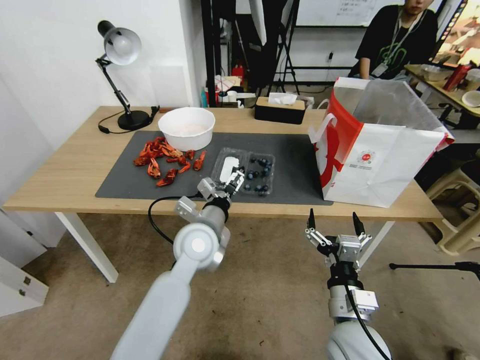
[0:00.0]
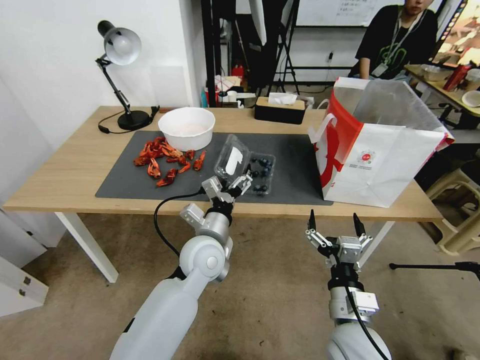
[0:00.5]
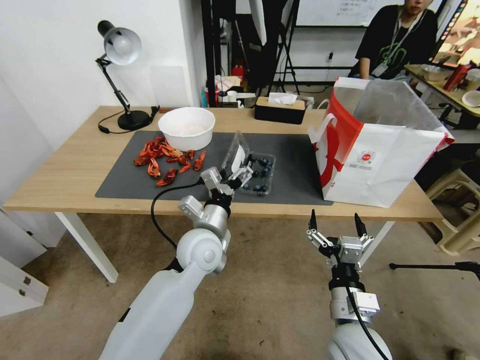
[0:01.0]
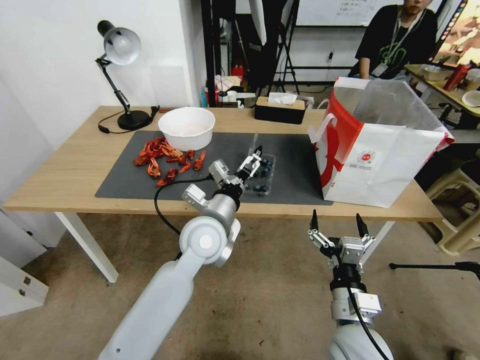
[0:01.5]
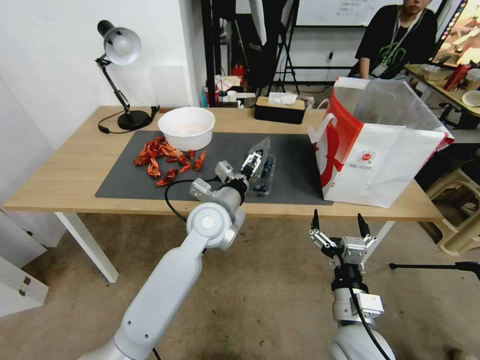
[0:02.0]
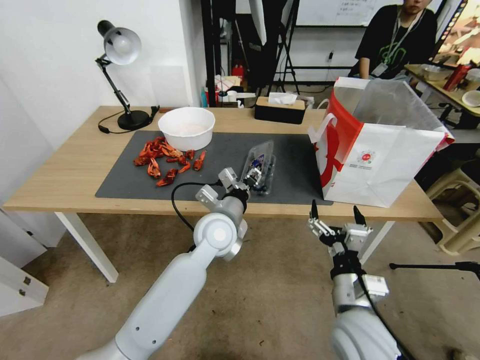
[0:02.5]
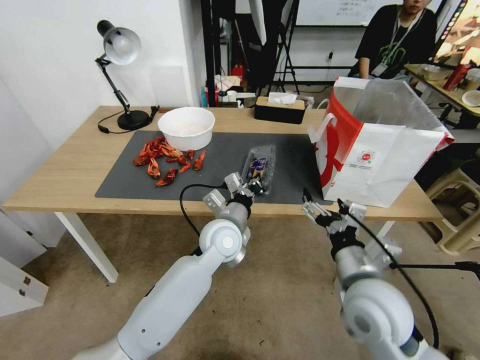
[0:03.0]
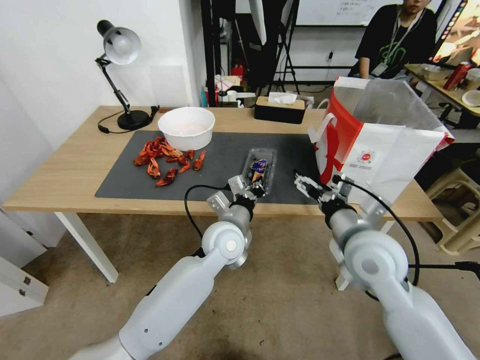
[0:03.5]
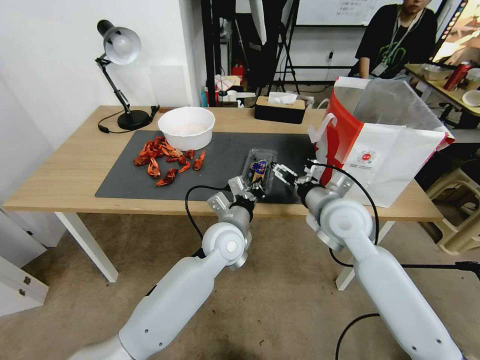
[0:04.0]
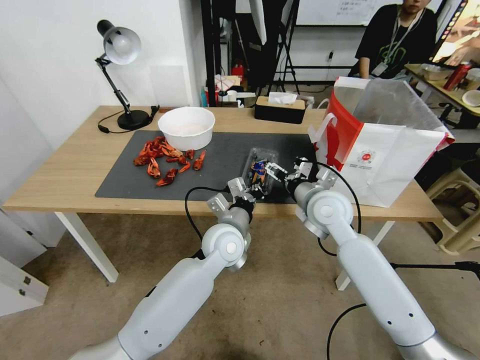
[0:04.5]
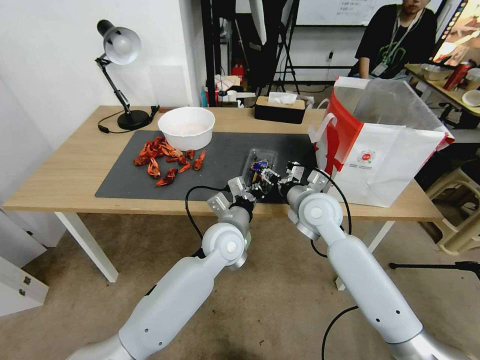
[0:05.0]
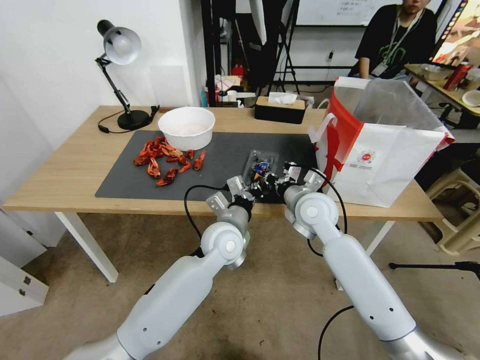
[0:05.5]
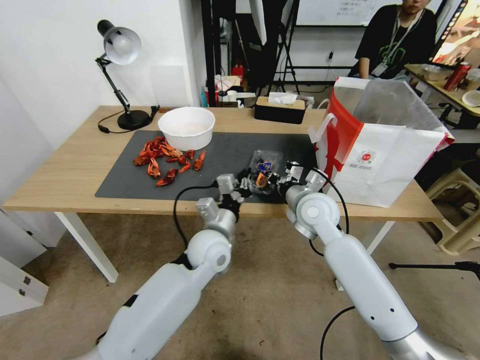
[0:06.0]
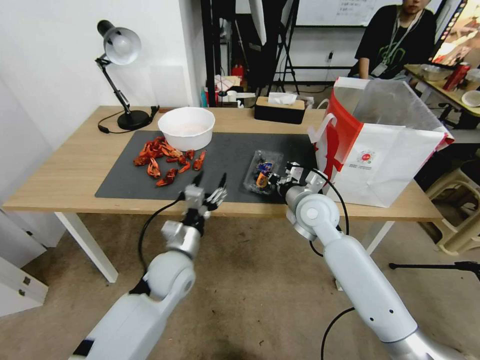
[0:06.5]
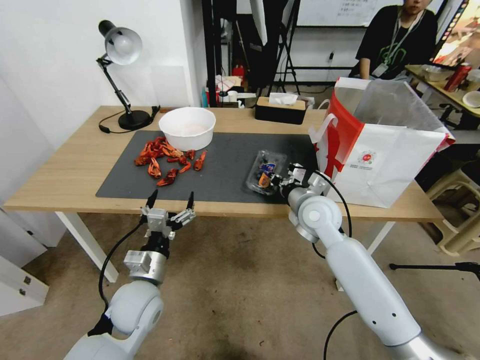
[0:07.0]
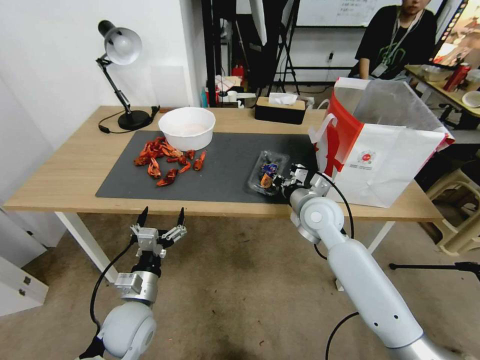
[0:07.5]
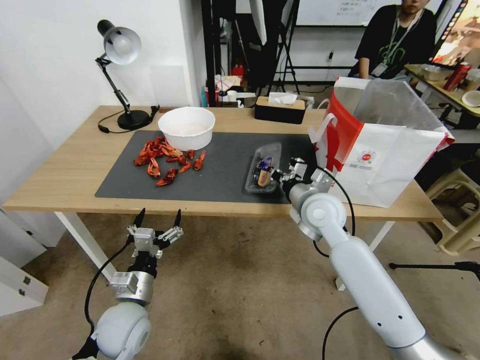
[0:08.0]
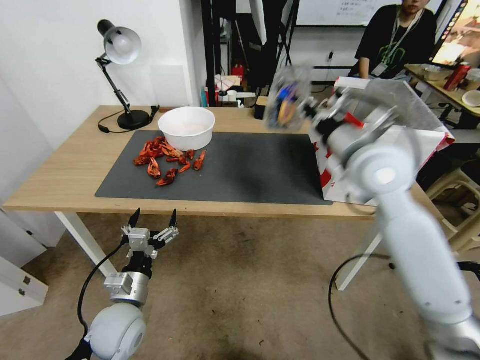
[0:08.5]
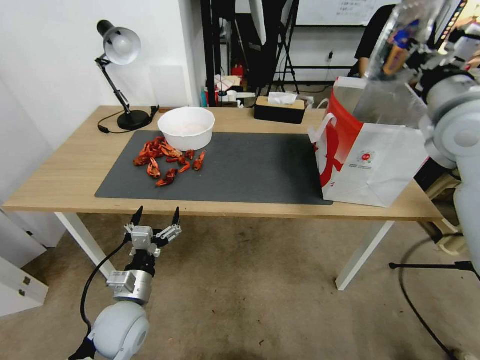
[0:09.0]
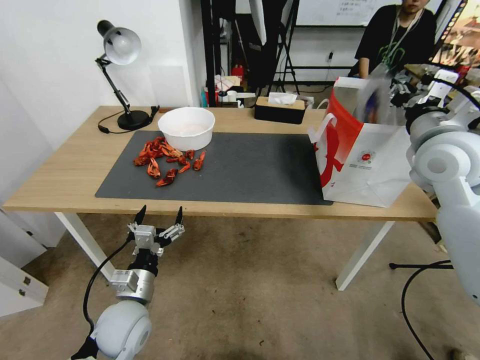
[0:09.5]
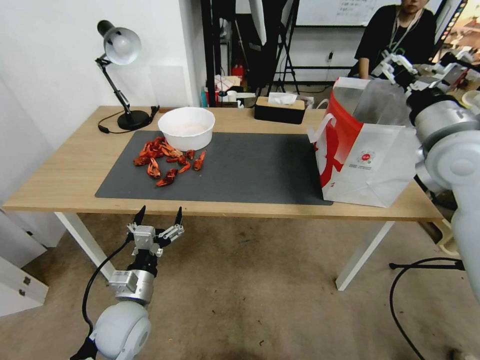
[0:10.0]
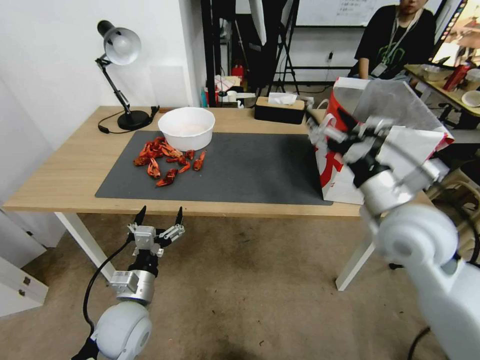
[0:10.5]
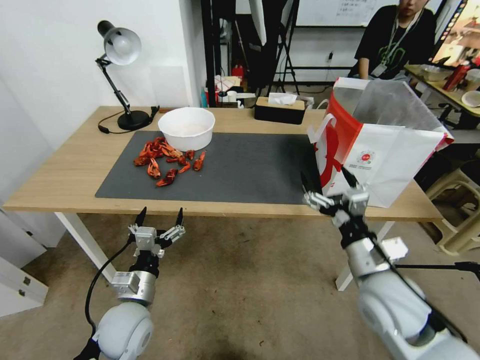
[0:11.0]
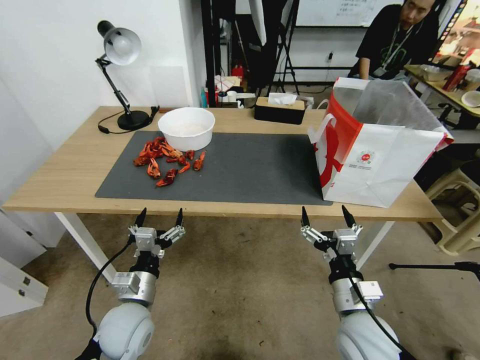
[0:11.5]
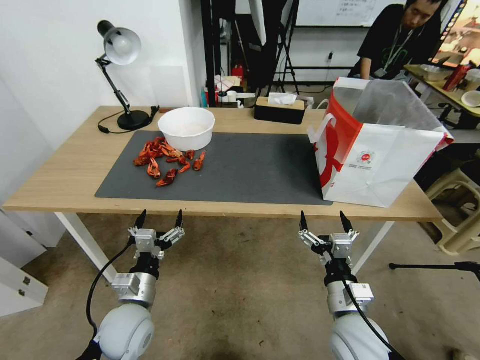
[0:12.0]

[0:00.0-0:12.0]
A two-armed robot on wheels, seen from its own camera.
Task of the whole recording: Close the takeout container lid, then place the container into the takeout bag.
0:02.0 to 0:04.0: The left gripper is displaced downward by approximately 5 cm, and closes; the right gripper heads forward and upward, covering approximately 25 cm.
0:04.0 to 0:06.0: The right gripper goes about 5 cm forward, and closes.
0:06.0 to 0:08.0: The left gripper is displaced to the left and backward by roughly 20 cm, and opens its fingers.
0:08.0 to 0:10.0: The right gripper travels upward and to the right by some 25 cm, and opens up.
0:10.0 to 0:12.0: The right gripper travels downward, backward and to the left by approximately 40 cm.

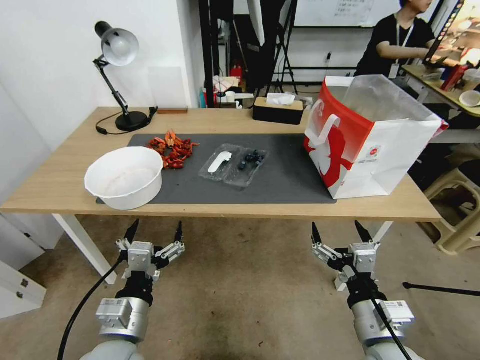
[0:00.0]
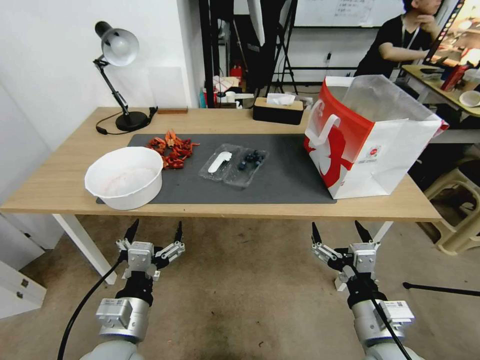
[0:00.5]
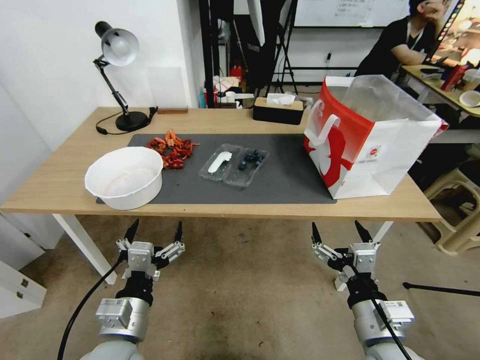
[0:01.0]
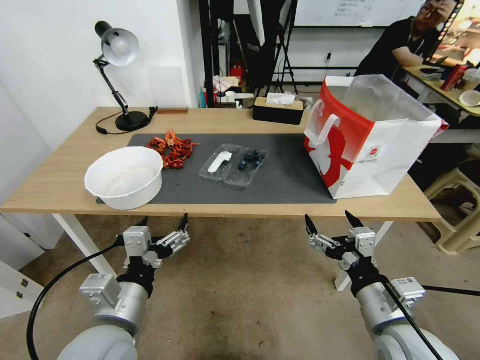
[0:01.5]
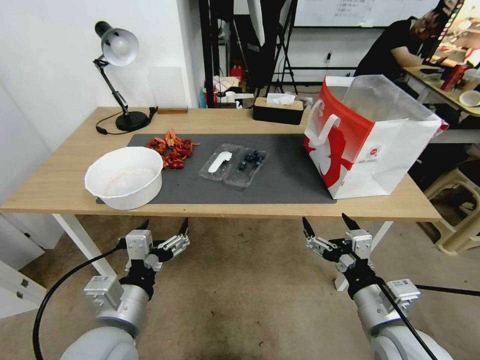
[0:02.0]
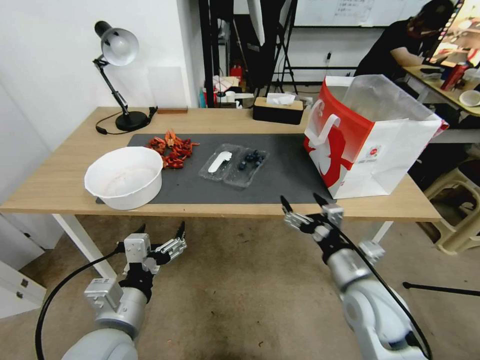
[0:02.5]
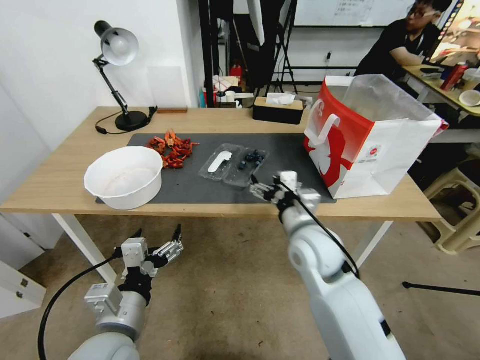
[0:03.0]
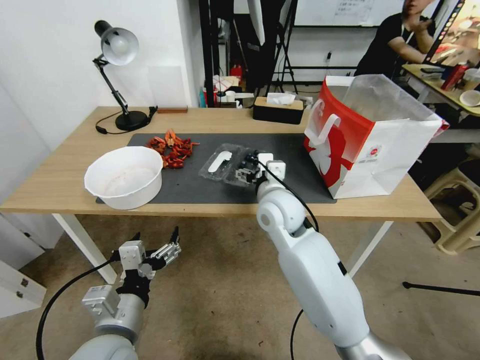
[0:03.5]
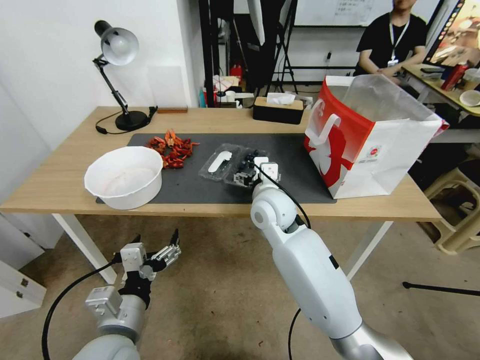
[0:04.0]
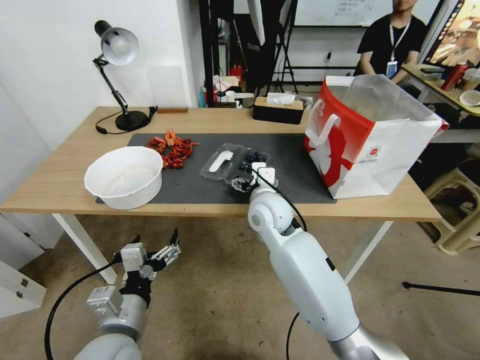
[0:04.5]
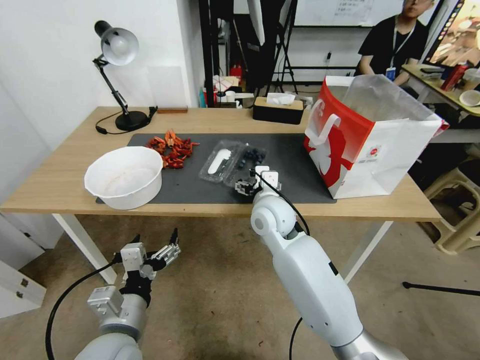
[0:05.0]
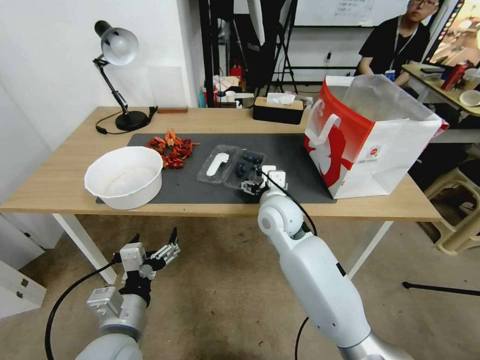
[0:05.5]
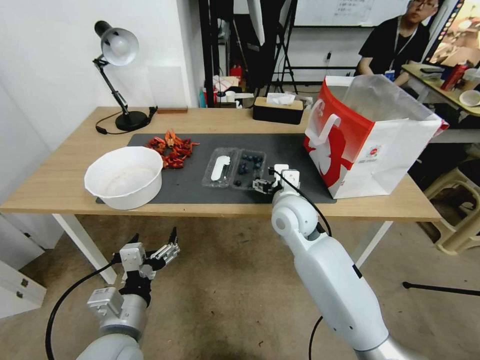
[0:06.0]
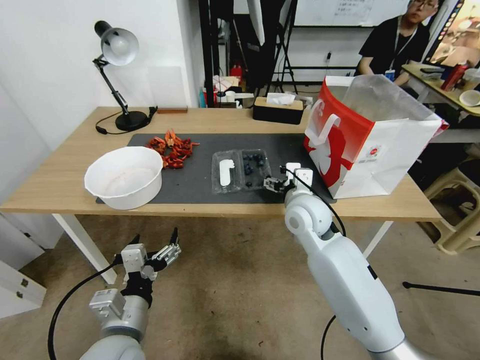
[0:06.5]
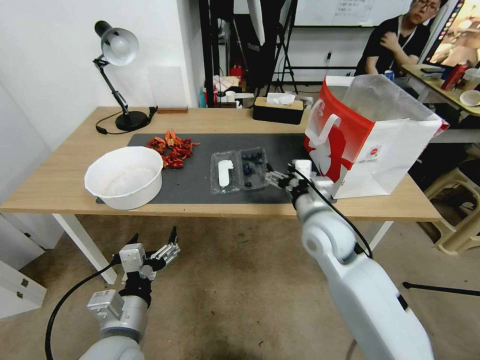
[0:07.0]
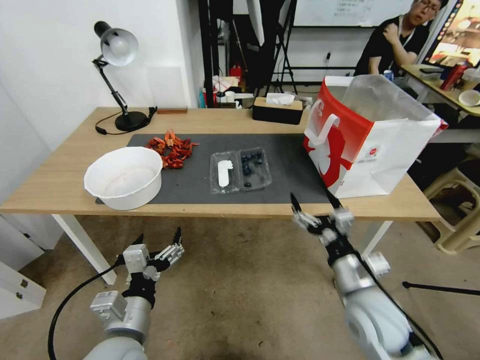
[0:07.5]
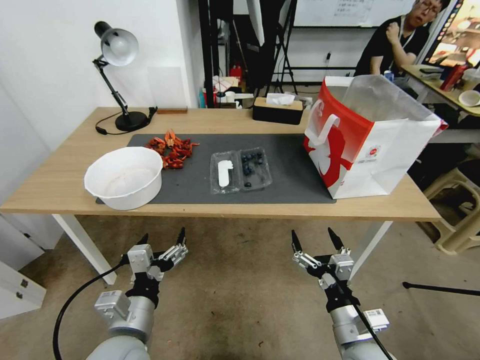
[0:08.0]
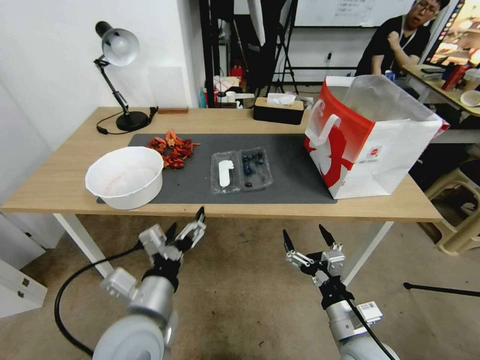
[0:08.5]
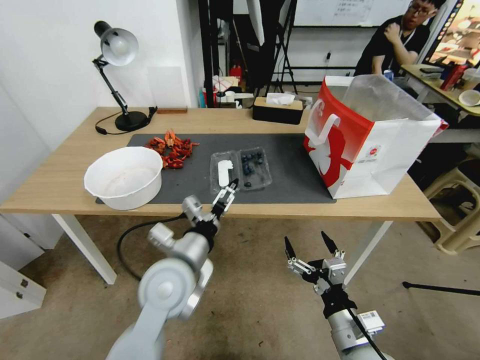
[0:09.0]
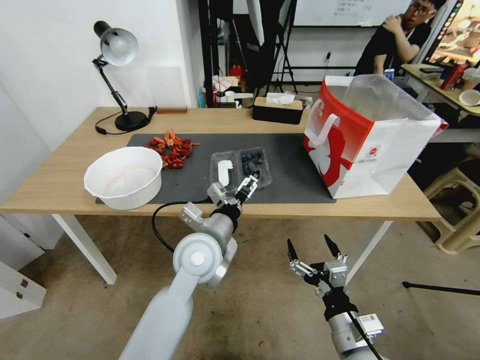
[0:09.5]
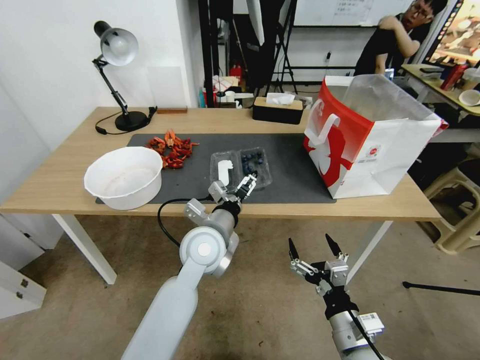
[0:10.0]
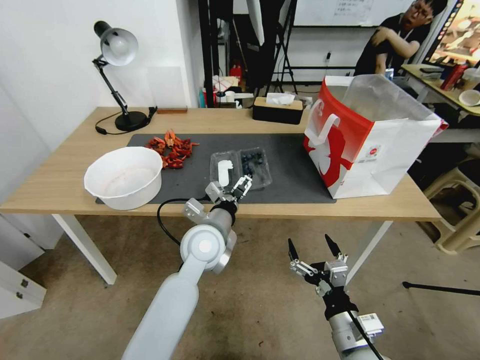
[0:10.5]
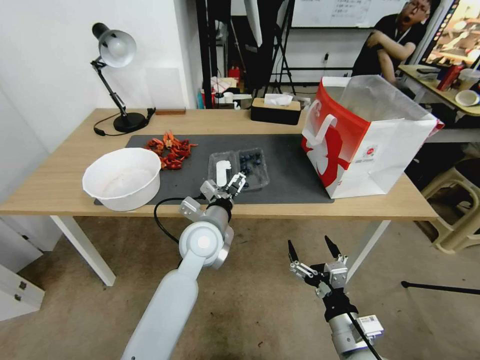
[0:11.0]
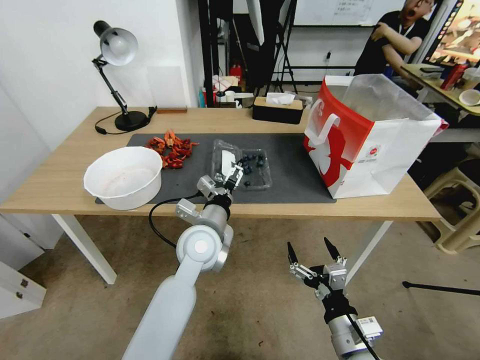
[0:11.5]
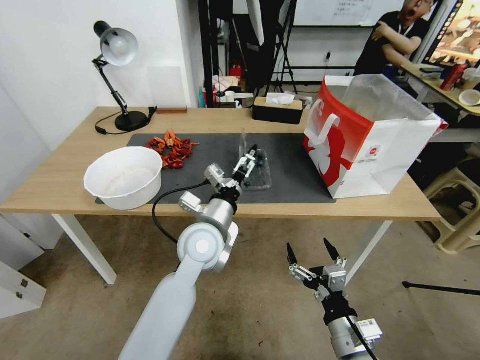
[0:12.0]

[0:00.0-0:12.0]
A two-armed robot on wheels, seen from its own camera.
Task of the whole recording: Close the takeout container lid, then place the container into the takeout bag.
0:02.0 to 0:04.0: The right gripper is displaced forward and to the left by approximately 30 cm.
0:04.0 to 0:06.0: The grippers move only a little.
0:06.0 to 0:08.0: The right gripper shifts about 30 cm backward, downward and to the right.
0:08.0 to 0:10.0: The left gripper travels forward and to the right by roughly 20 cm.
0:10.0 to 0:12.0: The grippers stay close to where they were, moving slightly.

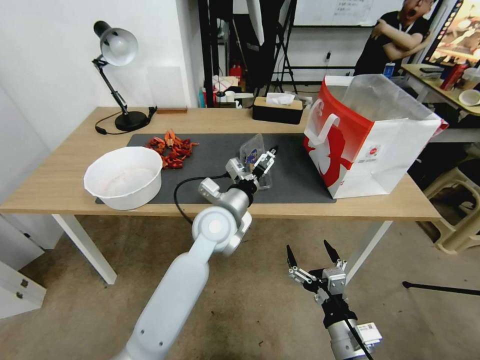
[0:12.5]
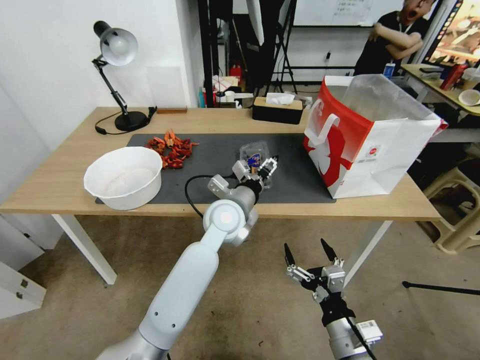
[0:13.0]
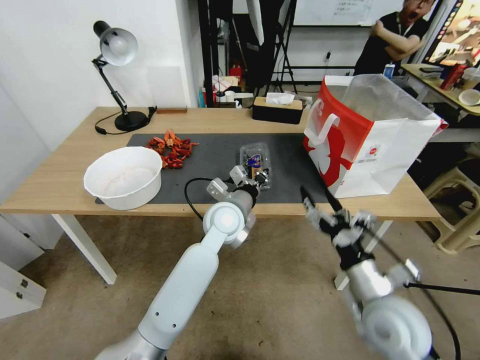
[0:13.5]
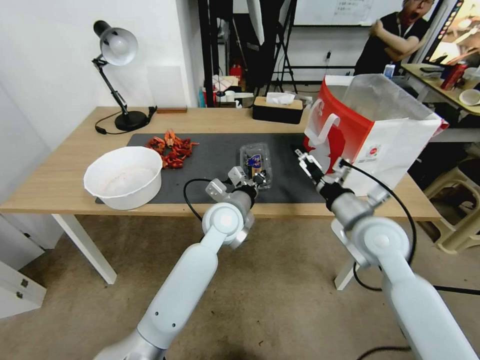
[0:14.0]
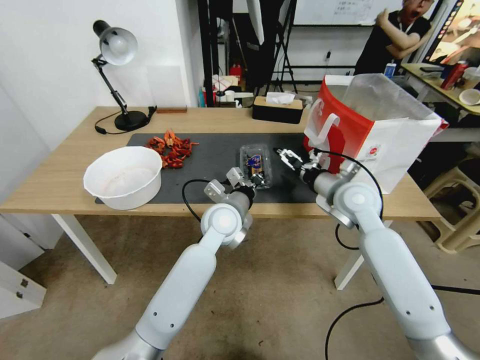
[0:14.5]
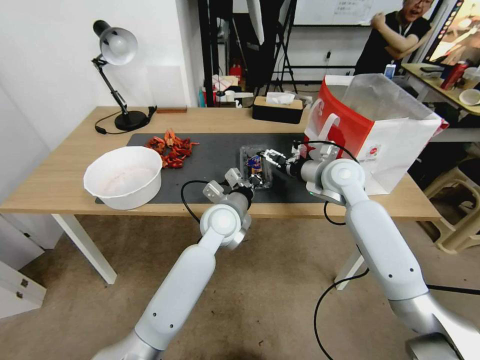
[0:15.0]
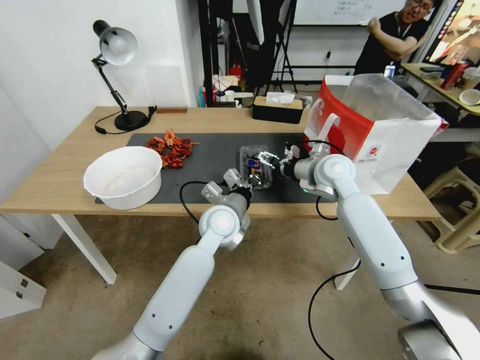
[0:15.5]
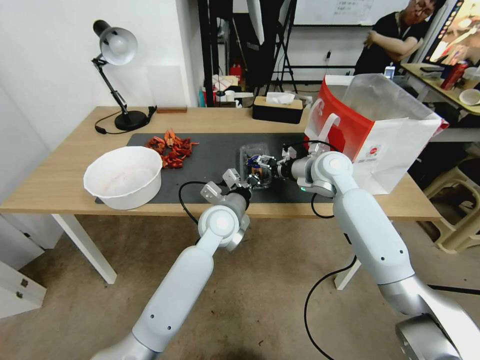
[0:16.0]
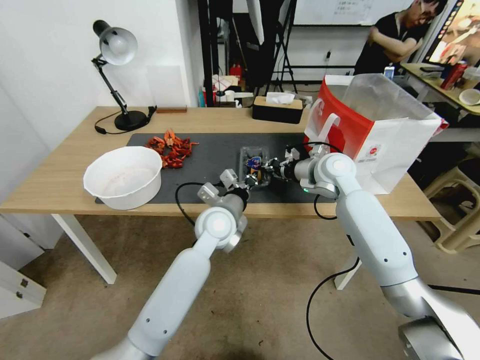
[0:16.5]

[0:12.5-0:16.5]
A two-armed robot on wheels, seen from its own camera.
Task of the whole recording: Close the takeout container lid, then place the container into the takeout bag.
0:12.5 to 0:14.5: The left gripper closes. The right gripper shifts roughly 35 cm forward and upward.
0:14.5 to 0:16.5: The right gripper shifts about 10 cm forward, and closes its fingers.
